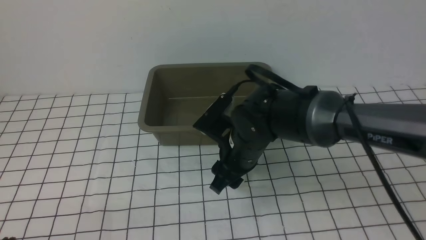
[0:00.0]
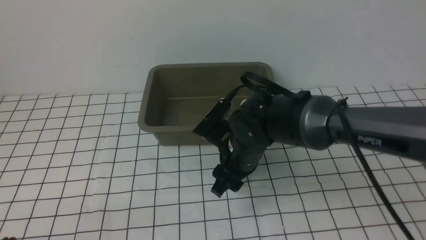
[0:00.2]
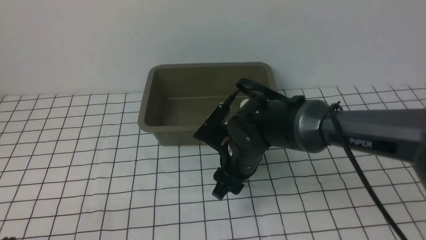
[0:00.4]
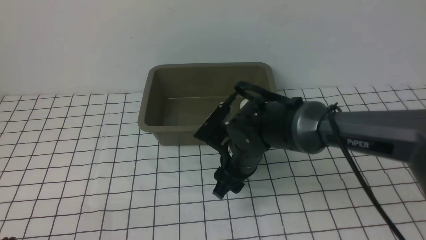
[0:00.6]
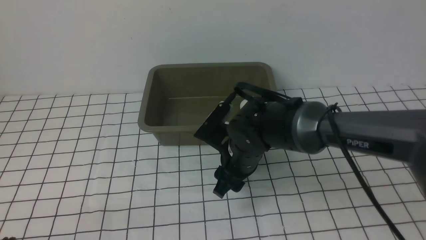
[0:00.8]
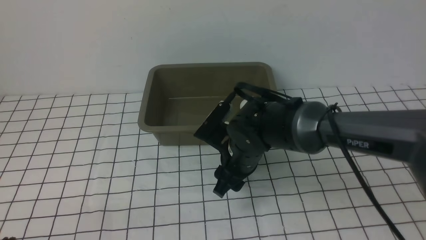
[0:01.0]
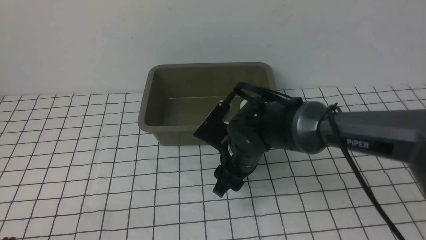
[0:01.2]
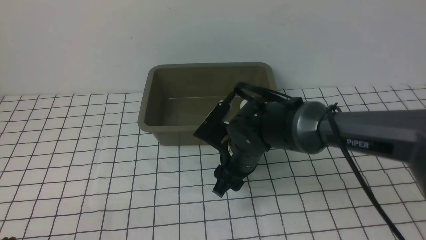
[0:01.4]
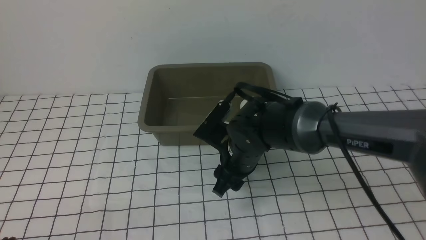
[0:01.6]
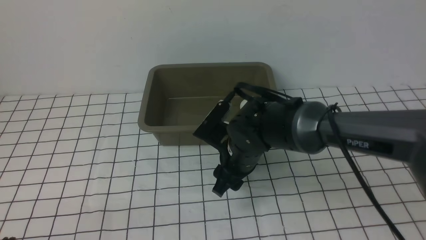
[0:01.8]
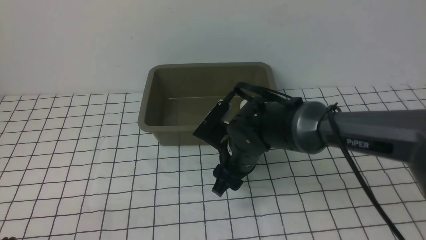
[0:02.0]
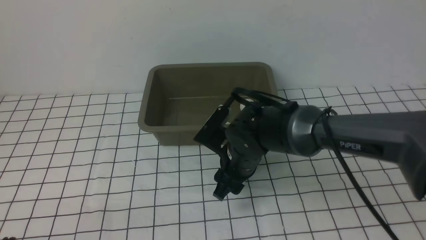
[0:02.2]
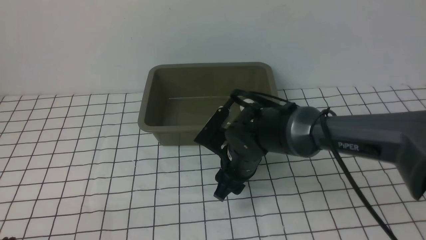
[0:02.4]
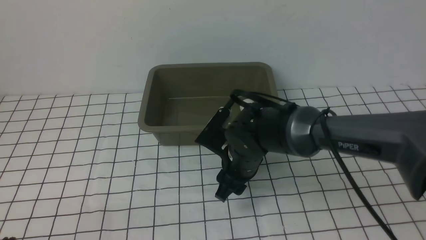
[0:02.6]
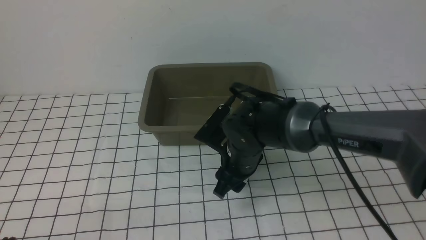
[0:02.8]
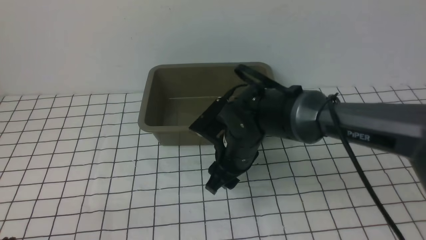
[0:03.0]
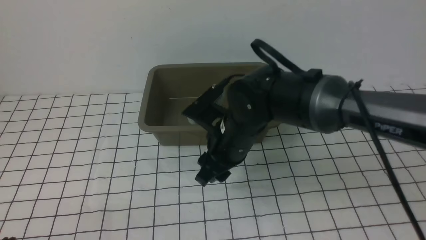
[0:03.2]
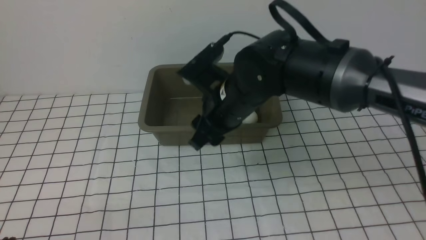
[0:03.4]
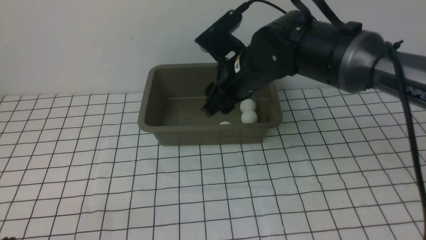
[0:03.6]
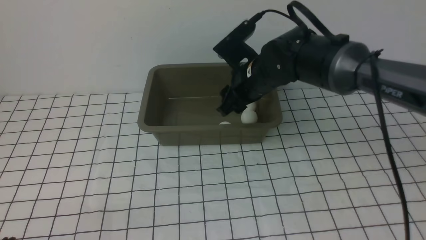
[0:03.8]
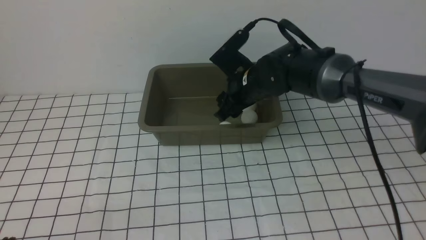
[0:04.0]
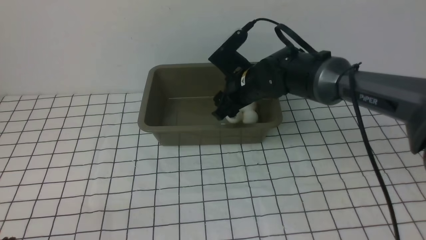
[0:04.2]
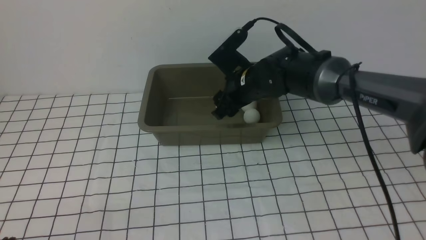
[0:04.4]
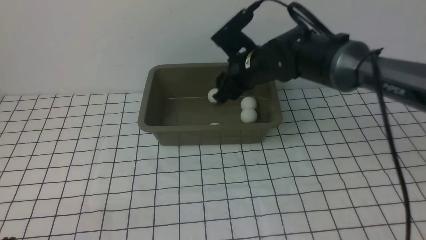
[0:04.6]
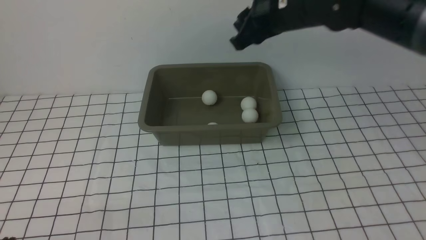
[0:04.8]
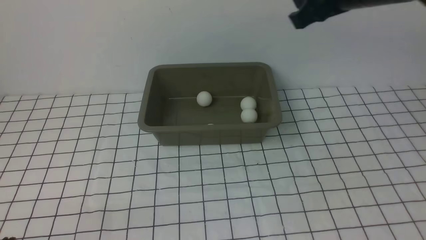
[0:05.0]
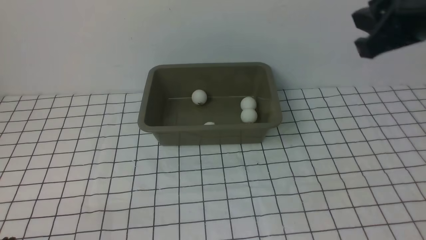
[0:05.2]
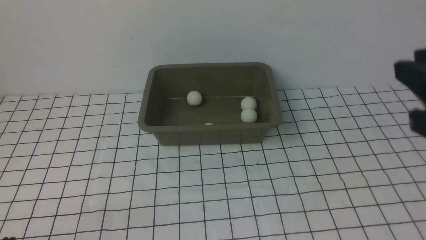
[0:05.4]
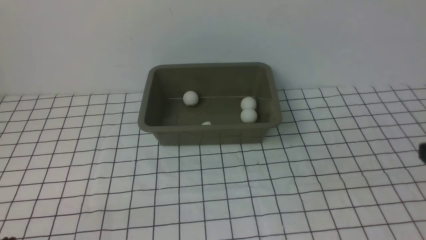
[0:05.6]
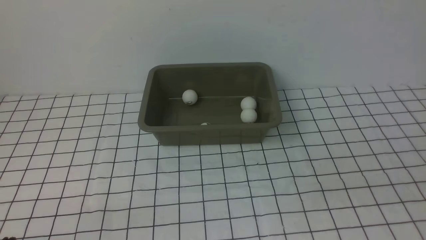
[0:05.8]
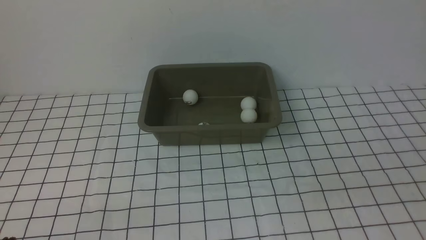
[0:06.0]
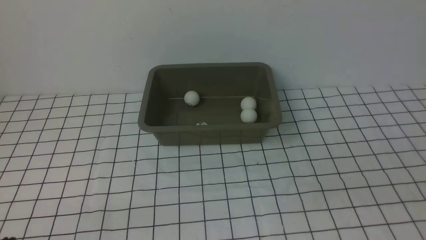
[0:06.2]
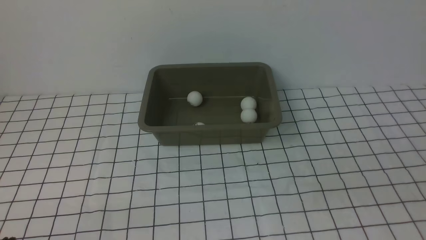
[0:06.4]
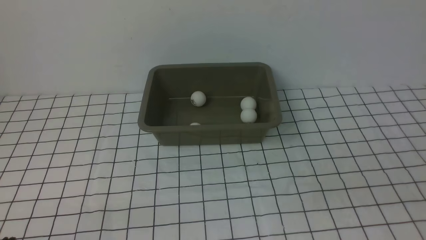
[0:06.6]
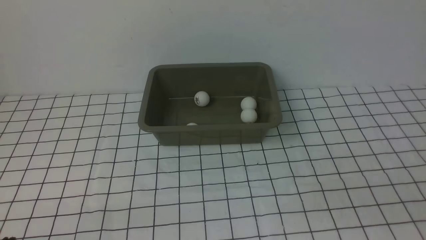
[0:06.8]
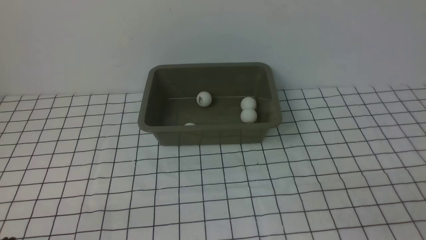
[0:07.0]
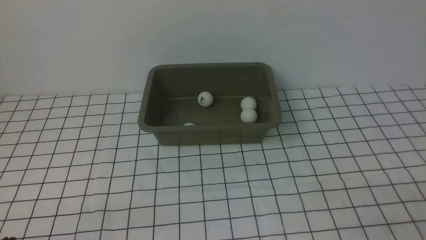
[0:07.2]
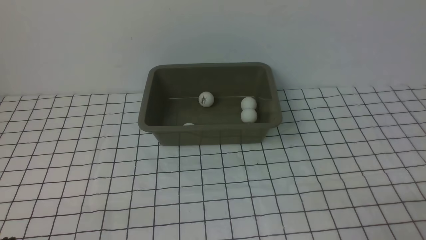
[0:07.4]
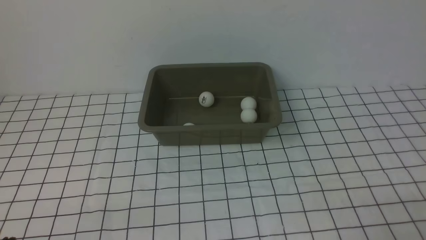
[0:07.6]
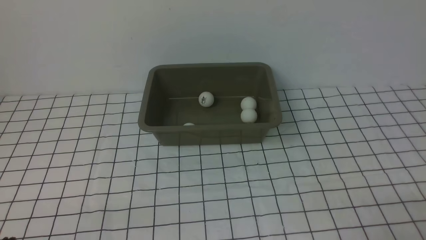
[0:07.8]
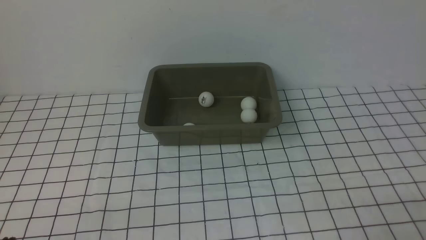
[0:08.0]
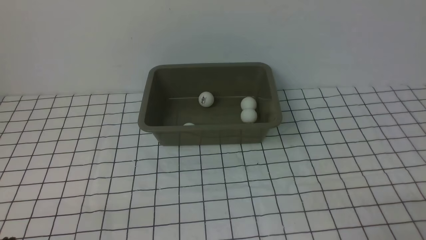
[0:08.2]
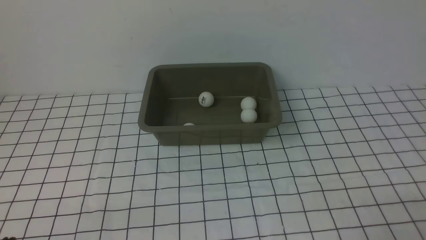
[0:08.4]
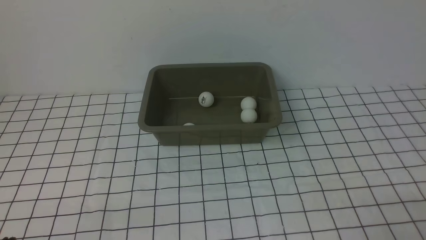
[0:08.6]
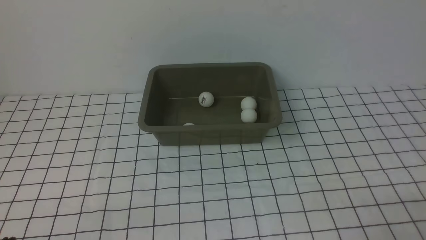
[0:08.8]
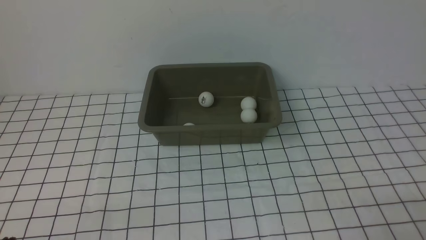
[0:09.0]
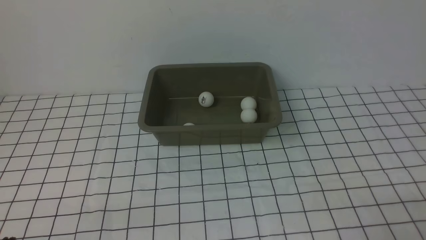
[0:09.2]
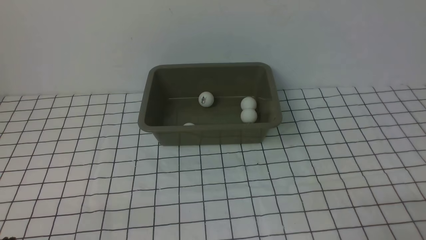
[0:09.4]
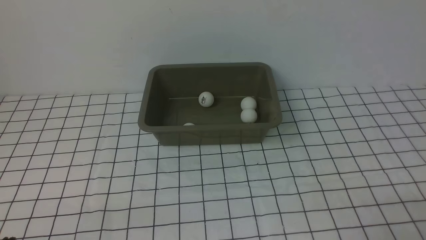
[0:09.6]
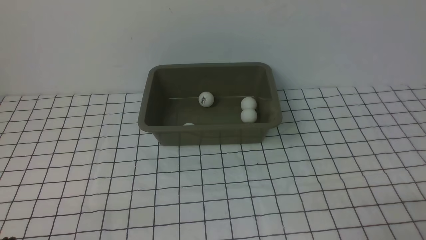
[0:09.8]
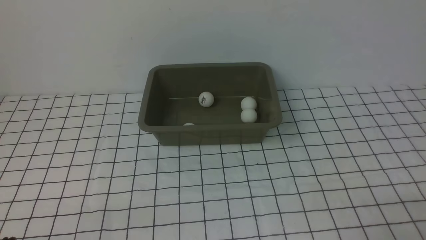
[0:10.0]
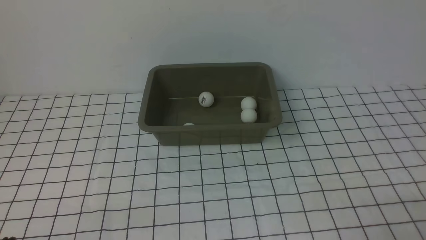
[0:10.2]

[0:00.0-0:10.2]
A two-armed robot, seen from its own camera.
Step, 0:00.0 to 0:03.0: use the right arm to clamp the table tennis ball closest to it.
Step, 0:03.4 to 0:04.4: use the right arm to put the table tennis ball into the box.
0:00.0 to 0:03.0: The grippers make only small movements.
0:03.0 to 0:04.4: The right gripper travels forward by about 10 cm.
0:04.4 to 0:05.8: The right gripper travels backward and to the right by some 40 cm, and closes its fingers.
0:08.8 to 0:10.2: Both grippers stay put.
